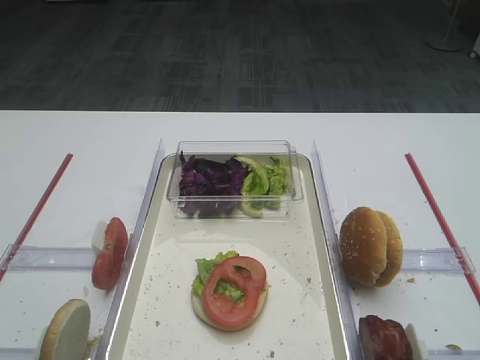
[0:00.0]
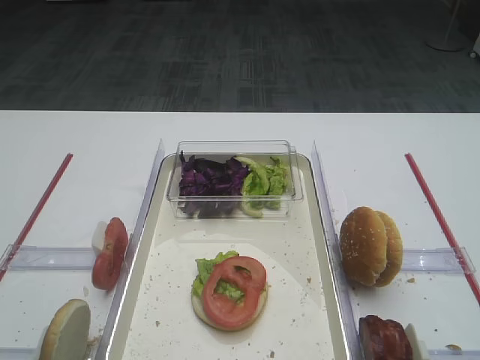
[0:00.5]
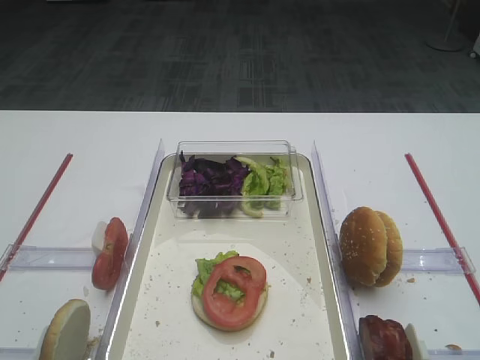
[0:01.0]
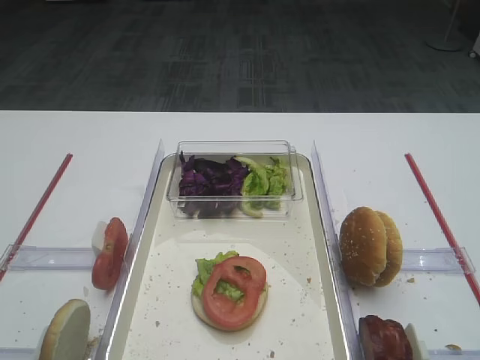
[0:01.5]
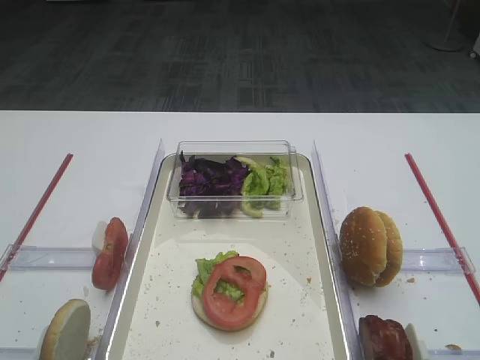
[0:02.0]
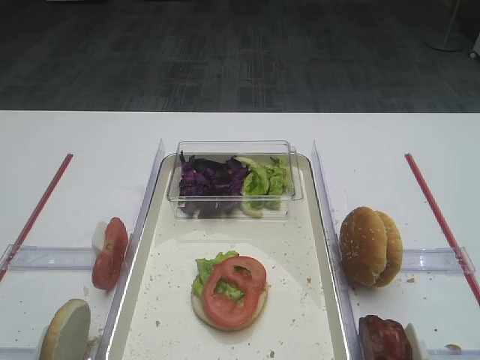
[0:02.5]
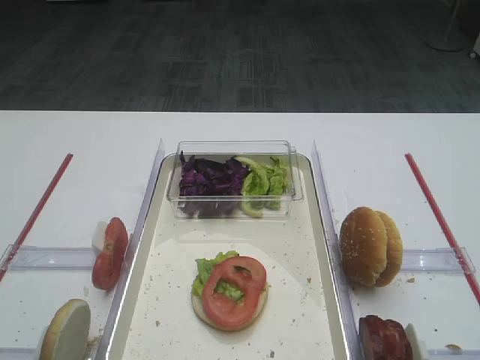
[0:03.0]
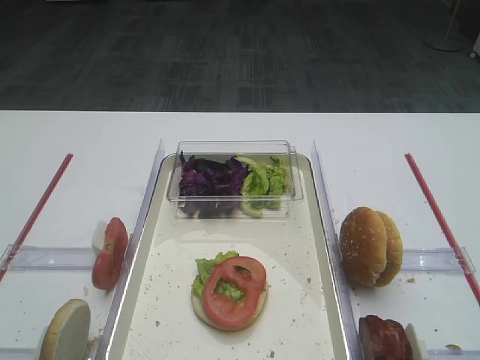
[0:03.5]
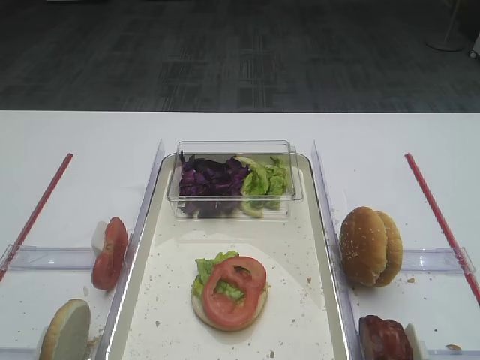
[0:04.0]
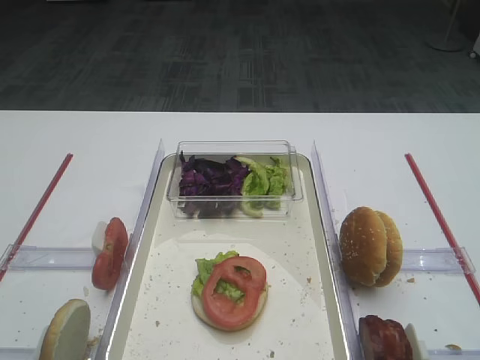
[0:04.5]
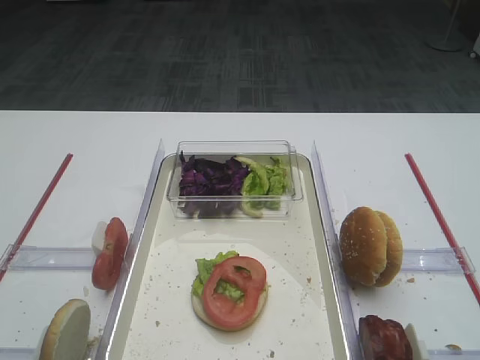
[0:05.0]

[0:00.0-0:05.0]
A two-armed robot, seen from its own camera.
0:02.5 to 0:05.0: Both grippers stay put.

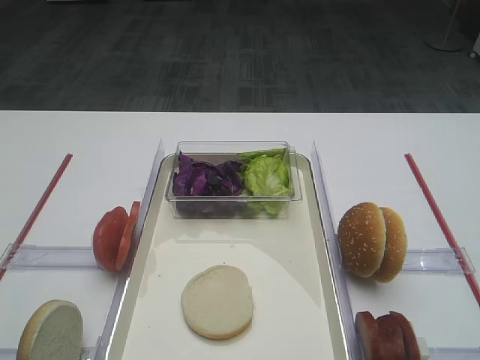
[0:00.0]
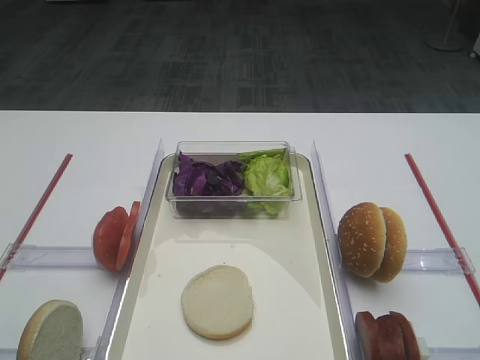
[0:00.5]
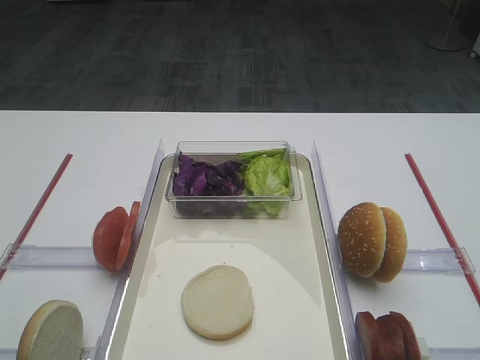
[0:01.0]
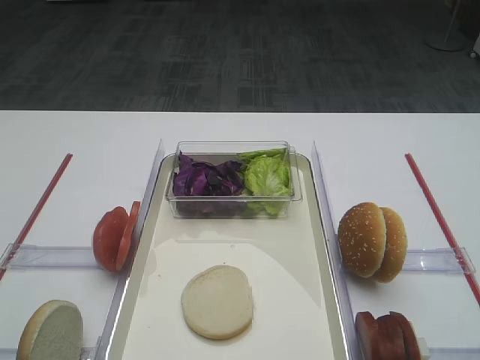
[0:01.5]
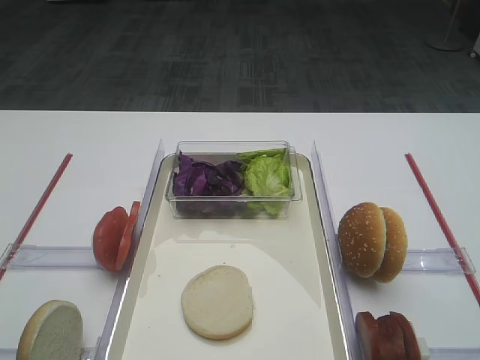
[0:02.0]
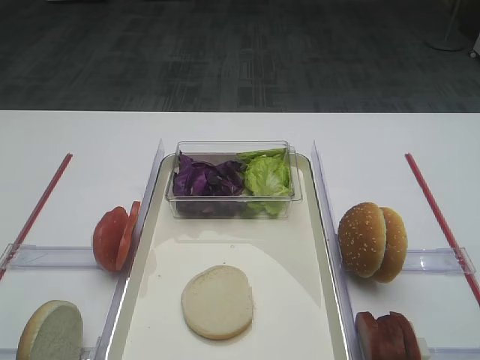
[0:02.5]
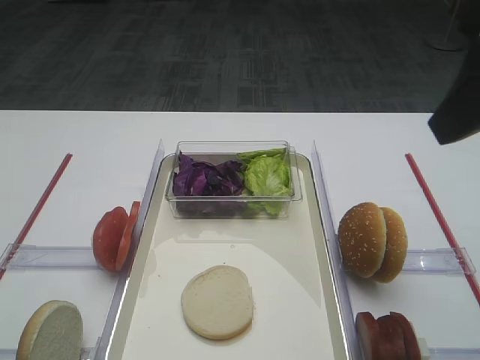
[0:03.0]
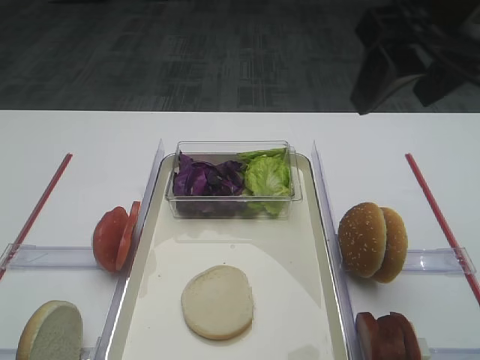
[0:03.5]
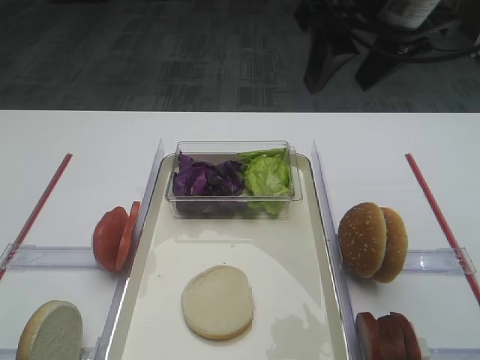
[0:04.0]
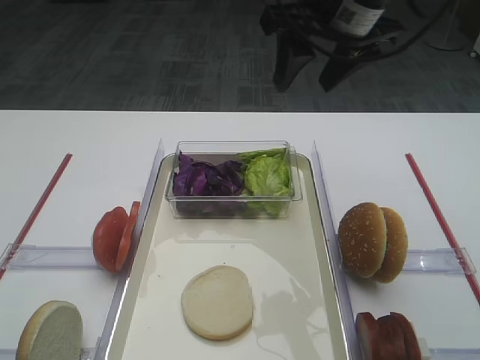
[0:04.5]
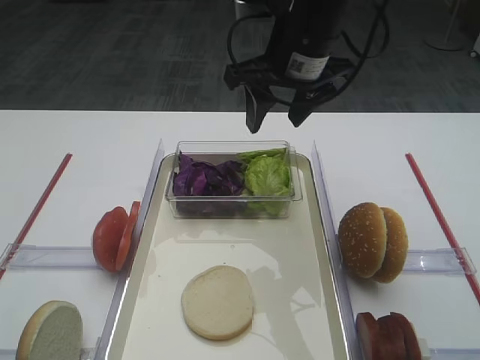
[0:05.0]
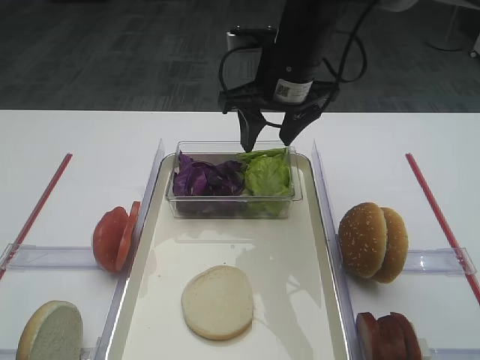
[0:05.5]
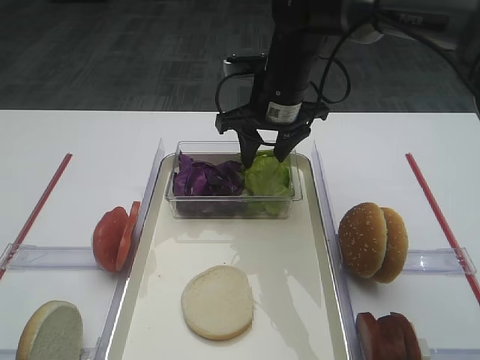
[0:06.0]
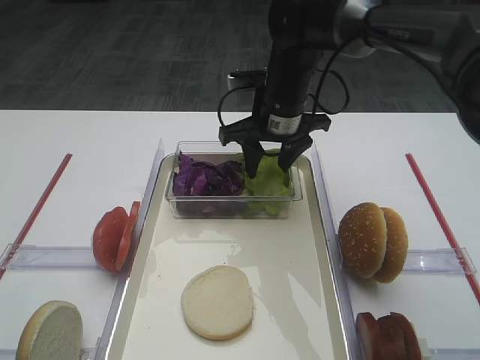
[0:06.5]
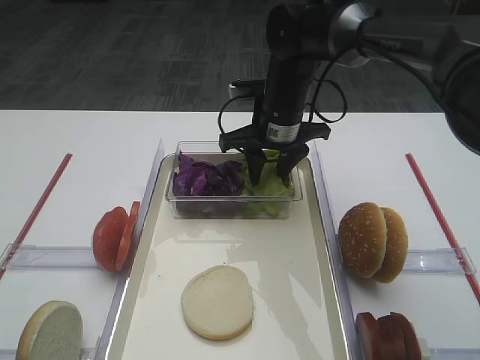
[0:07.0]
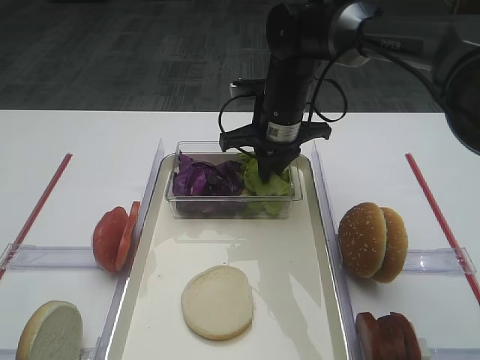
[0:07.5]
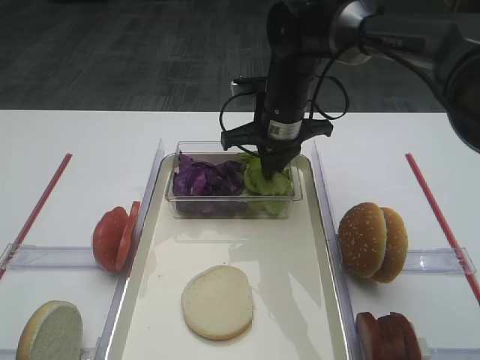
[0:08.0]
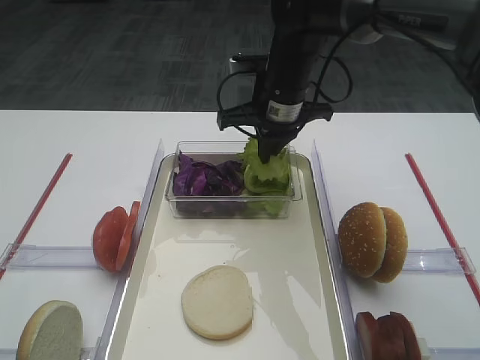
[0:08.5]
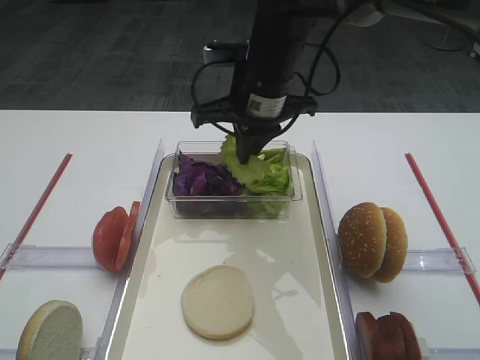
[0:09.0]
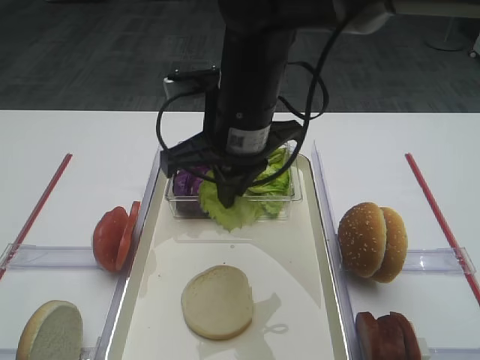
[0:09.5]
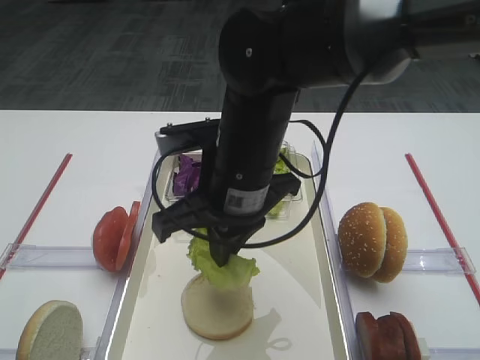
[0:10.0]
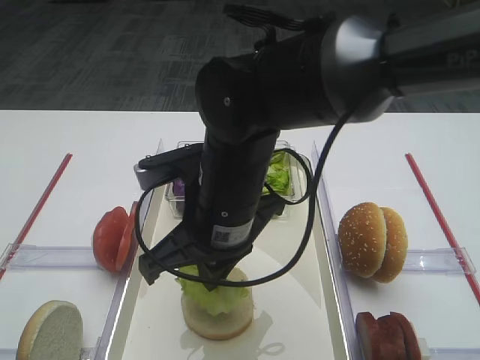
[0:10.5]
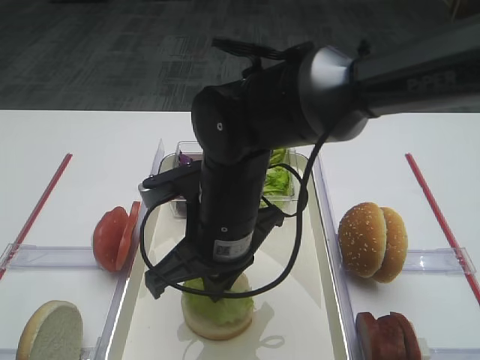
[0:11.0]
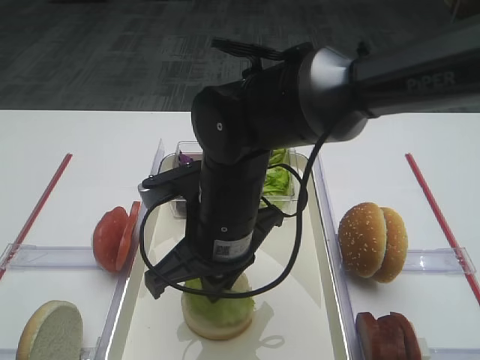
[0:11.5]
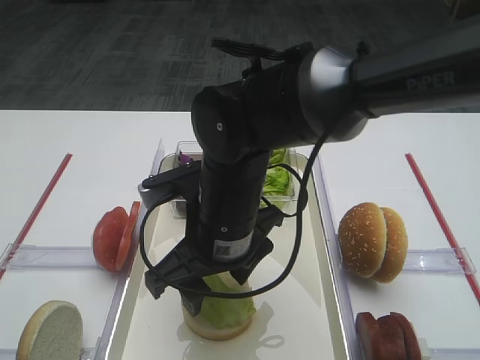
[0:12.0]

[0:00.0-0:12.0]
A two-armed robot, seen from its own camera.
Step, 0:00.0 to 0:08.5: Pick up the lettuce leaf with the right gripper.
0:02.0 to 0:04.0: The right gripper moves forward and to the left, roughly 30 cm.
0:04.0 to 0:06.0: The right gripper is displaced downward, forward and to the left by about 20 cm.
0:06.0 to 0:08.0: The right gripper closes its fingers.
0:08.0 to 0:10.0: The right gripper is displaced backward by approximately 15 cm.
0:10.0 to 0:12.0: The right gripper shifts by approximately 5 cm, and opens.

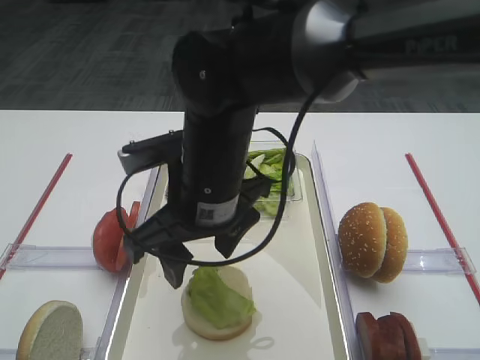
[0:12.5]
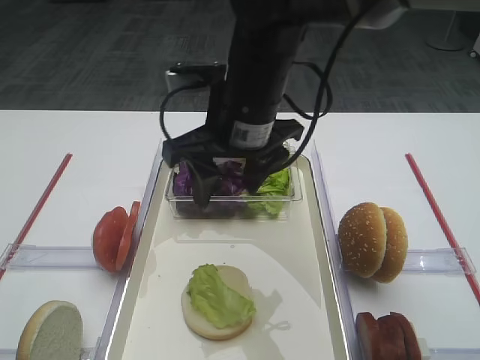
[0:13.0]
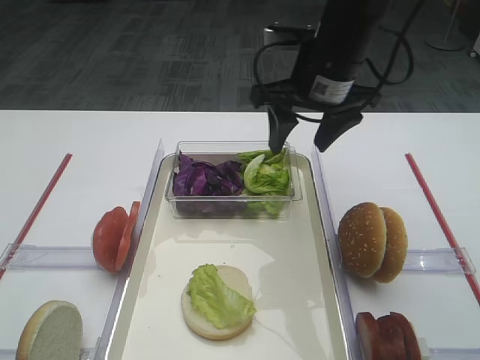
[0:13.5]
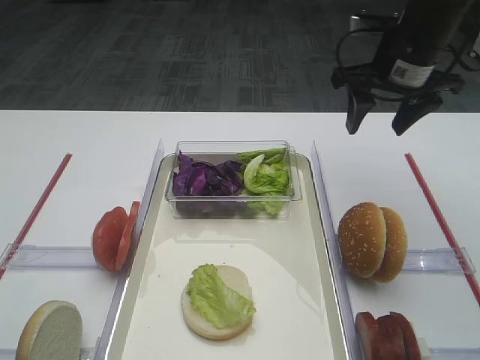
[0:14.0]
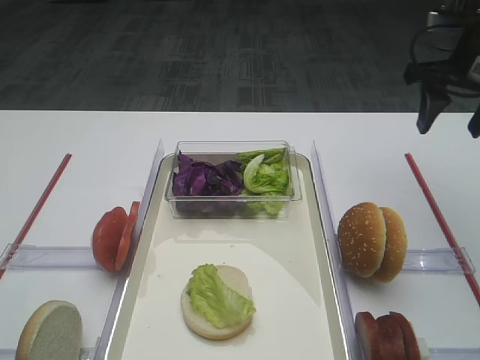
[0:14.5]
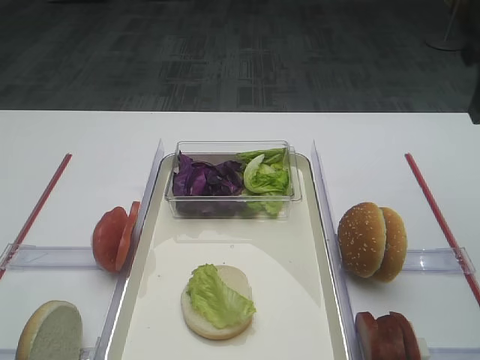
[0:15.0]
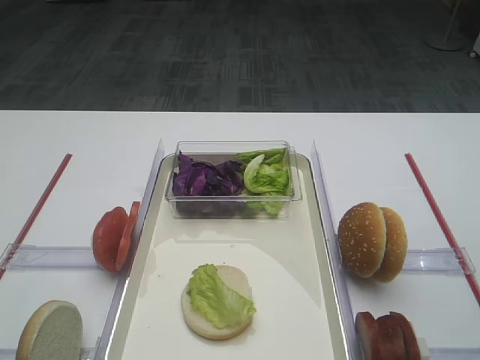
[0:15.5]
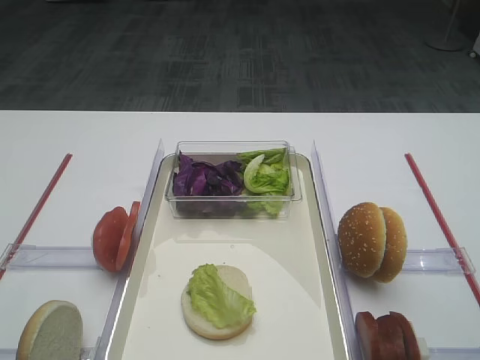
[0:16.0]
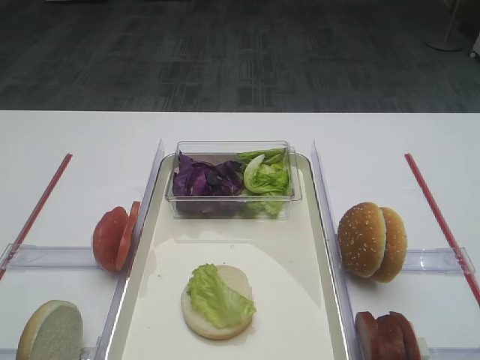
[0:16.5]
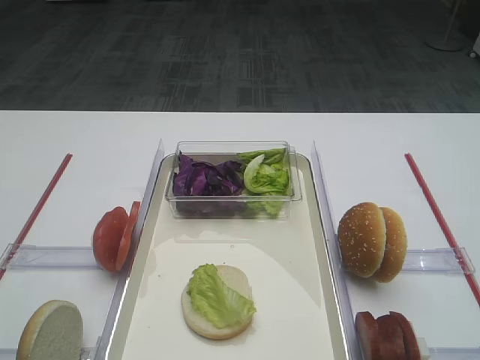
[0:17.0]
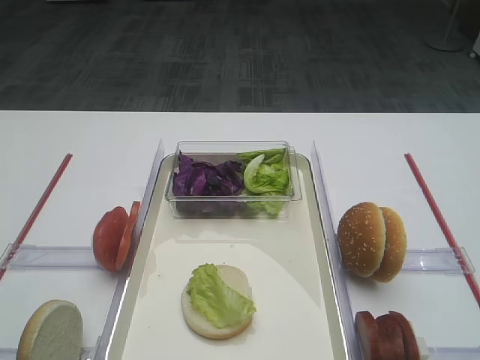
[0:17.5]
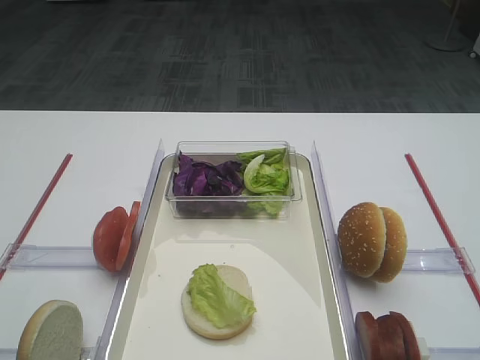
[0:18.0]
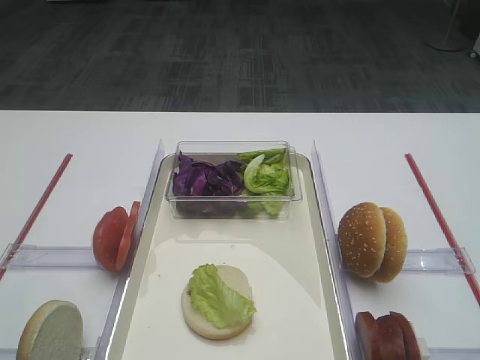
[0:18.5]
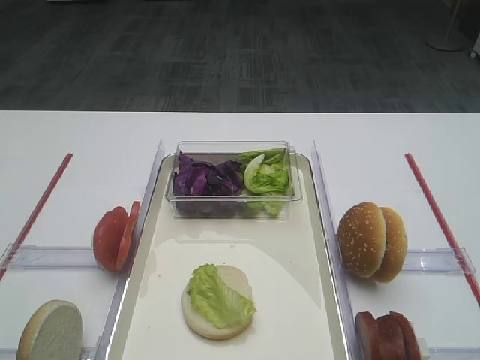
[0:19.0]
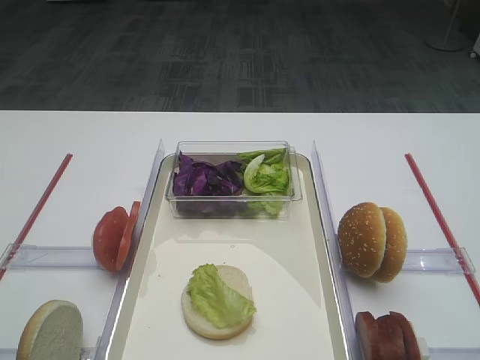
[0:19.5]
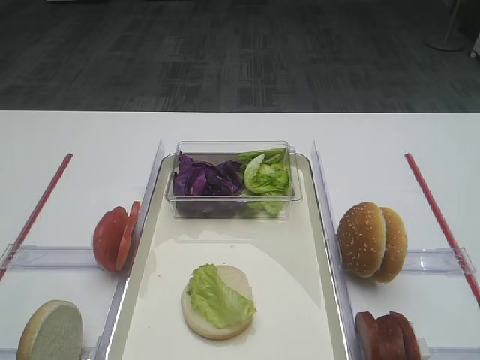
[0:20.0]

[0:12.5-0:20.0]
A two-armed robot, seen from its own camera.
0:12.5 to 0:14.5: The right gripper moves to the right and forward, roughly 35 cm.
0:14.5 to 0:16.5: The right gripper heads backward, covering roughly 35 cm.
0:18.0 to 0:20.0: The two grippers keep their place.

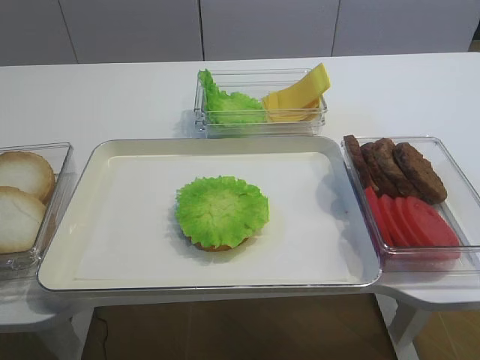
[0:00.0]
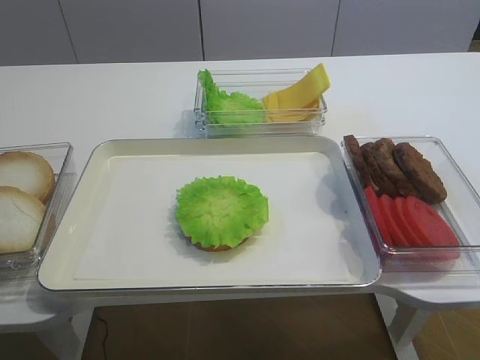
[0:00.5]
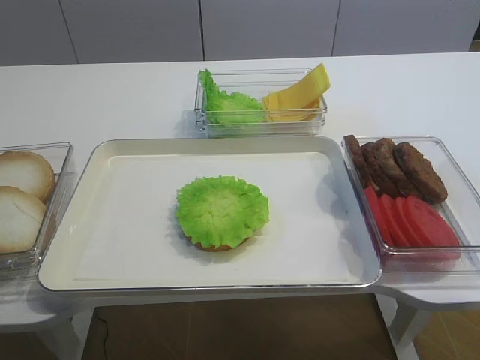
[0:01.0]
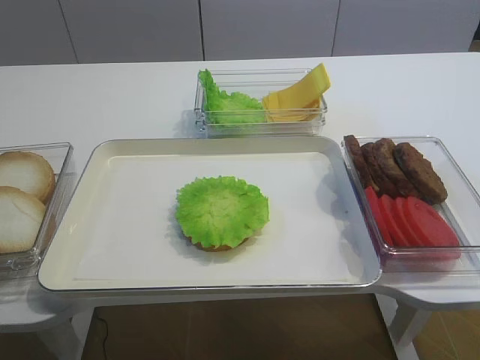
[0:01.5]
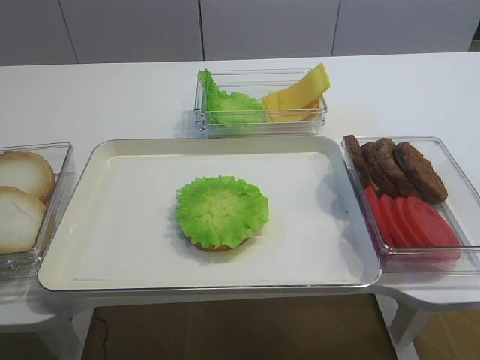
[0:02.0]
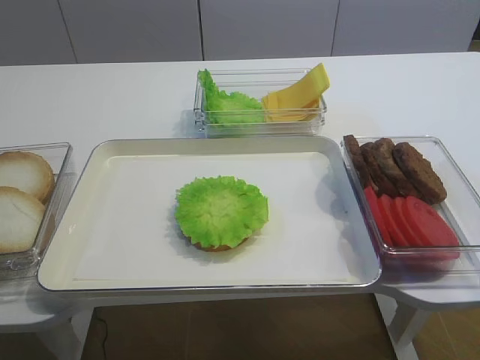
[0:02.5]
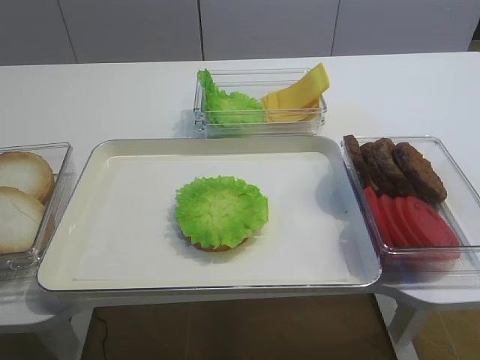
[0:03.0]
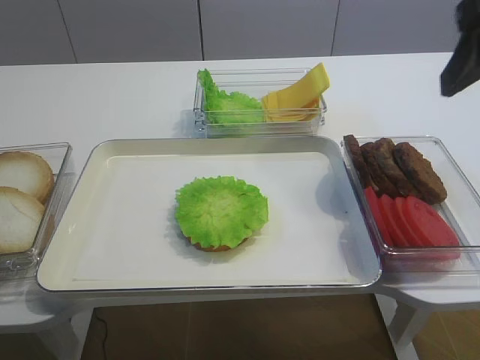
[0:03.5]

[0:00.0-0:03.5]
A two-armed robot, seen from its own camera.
0:02.0 to 0:03.5: The right gripper heads forward and upward, covering some 25 cm.
